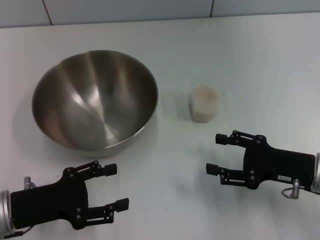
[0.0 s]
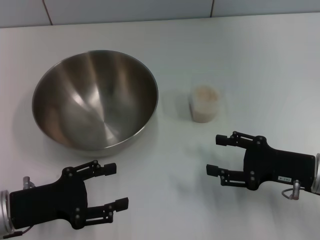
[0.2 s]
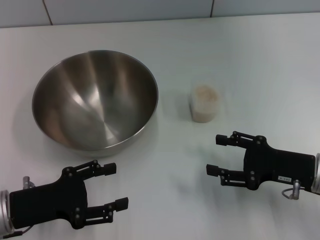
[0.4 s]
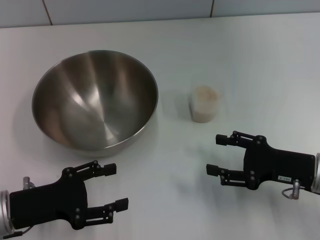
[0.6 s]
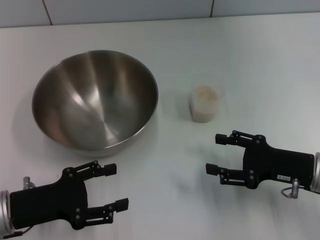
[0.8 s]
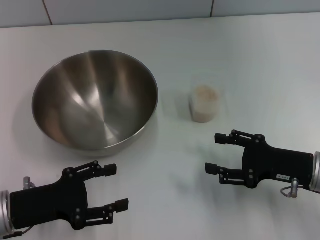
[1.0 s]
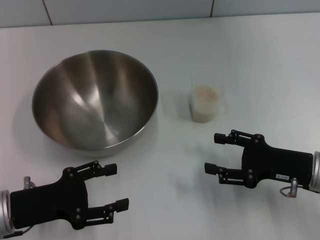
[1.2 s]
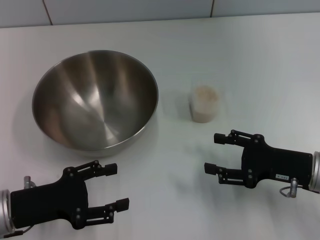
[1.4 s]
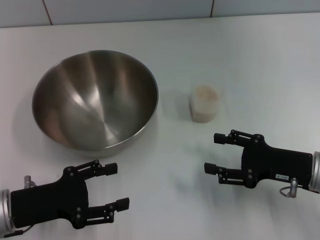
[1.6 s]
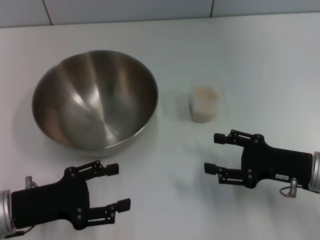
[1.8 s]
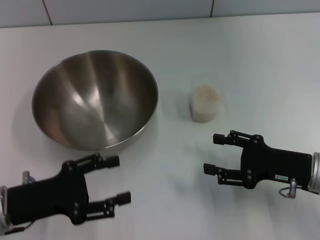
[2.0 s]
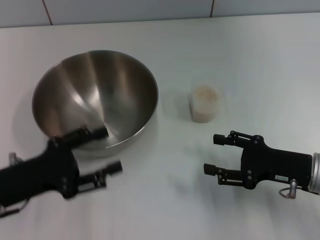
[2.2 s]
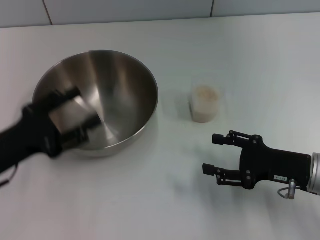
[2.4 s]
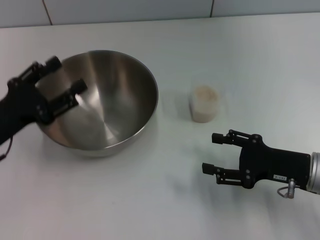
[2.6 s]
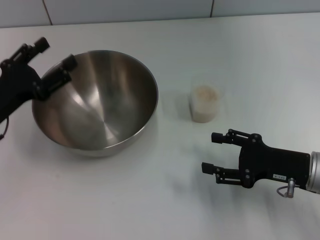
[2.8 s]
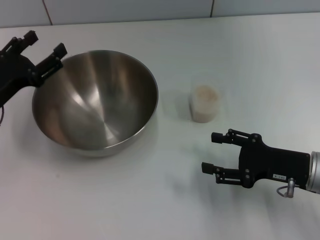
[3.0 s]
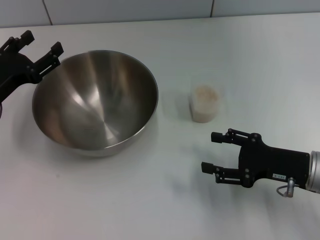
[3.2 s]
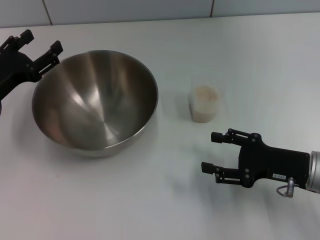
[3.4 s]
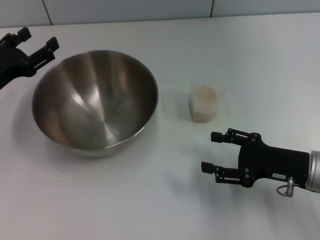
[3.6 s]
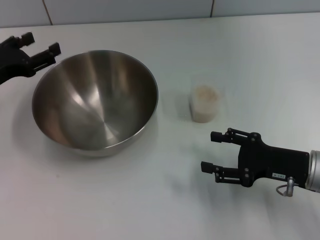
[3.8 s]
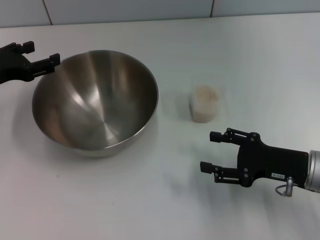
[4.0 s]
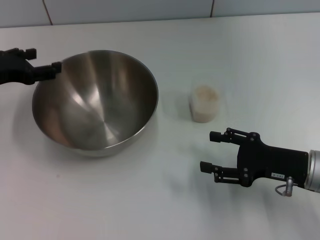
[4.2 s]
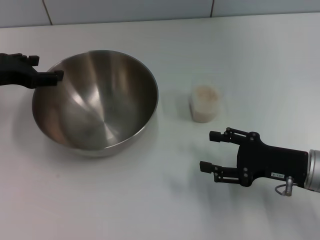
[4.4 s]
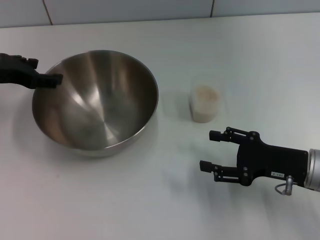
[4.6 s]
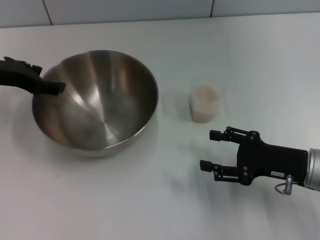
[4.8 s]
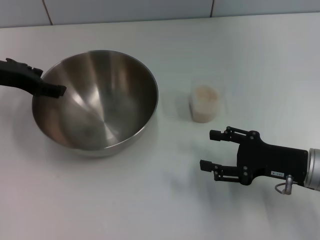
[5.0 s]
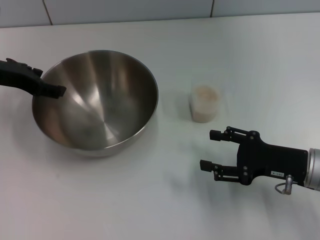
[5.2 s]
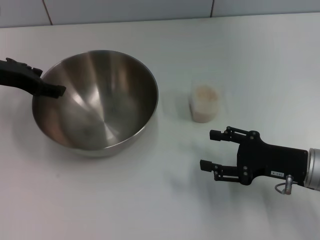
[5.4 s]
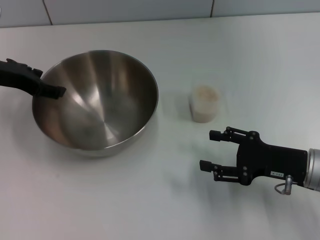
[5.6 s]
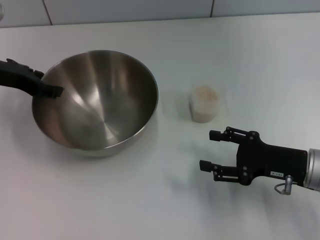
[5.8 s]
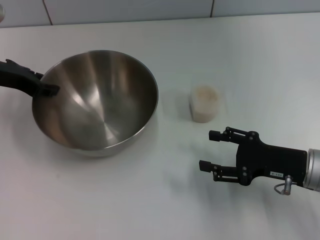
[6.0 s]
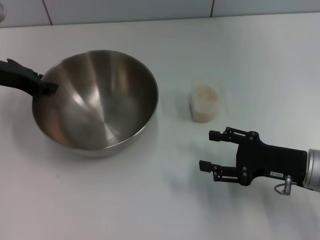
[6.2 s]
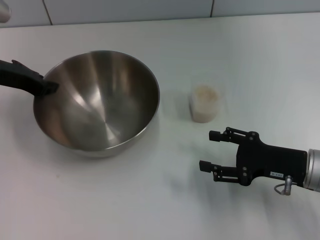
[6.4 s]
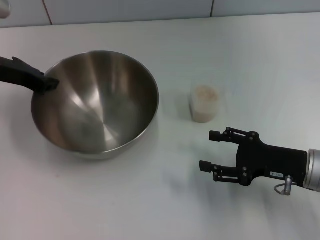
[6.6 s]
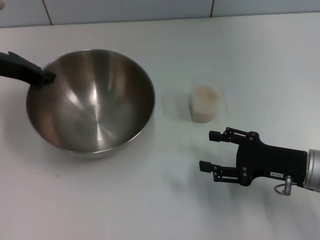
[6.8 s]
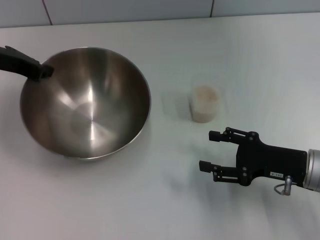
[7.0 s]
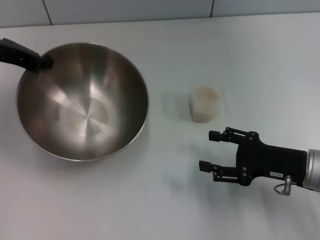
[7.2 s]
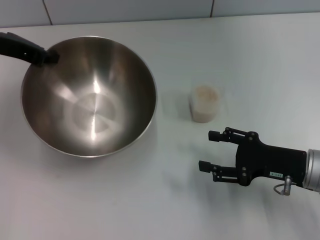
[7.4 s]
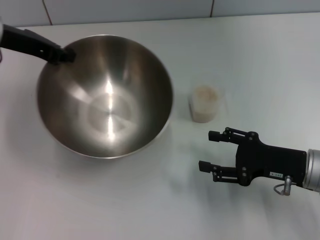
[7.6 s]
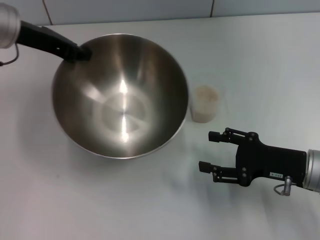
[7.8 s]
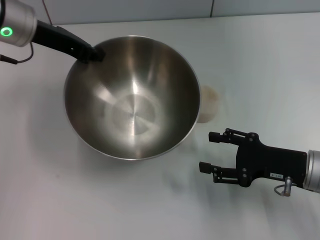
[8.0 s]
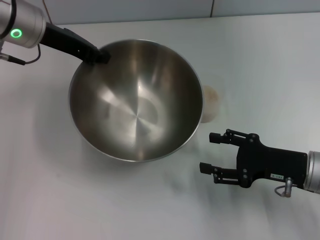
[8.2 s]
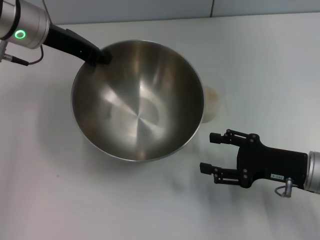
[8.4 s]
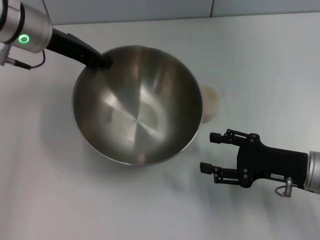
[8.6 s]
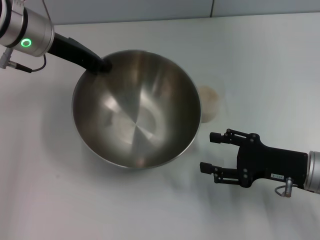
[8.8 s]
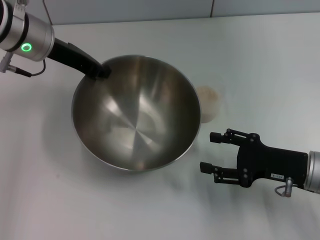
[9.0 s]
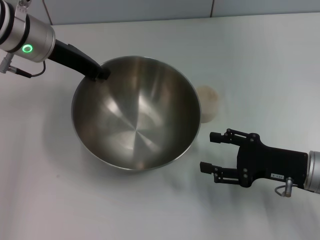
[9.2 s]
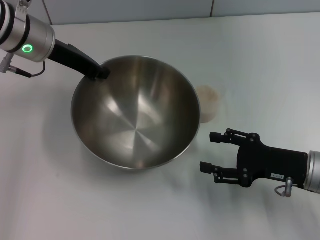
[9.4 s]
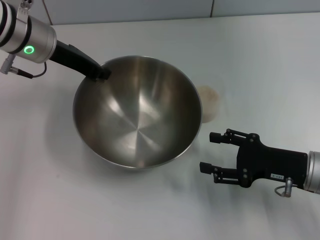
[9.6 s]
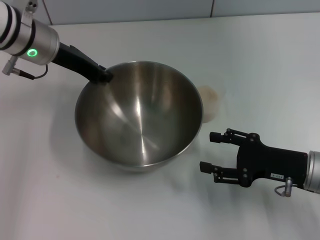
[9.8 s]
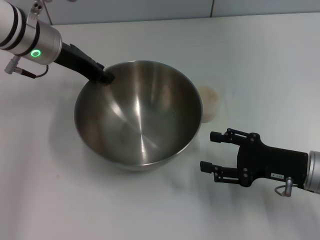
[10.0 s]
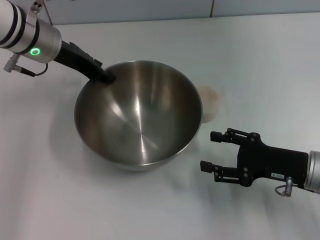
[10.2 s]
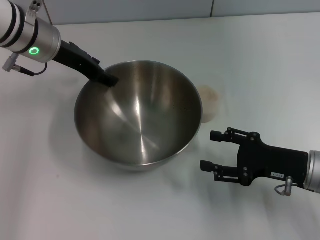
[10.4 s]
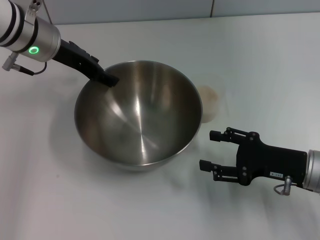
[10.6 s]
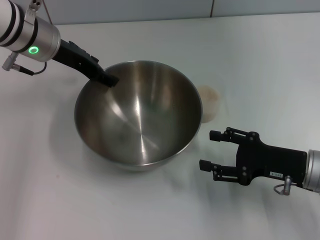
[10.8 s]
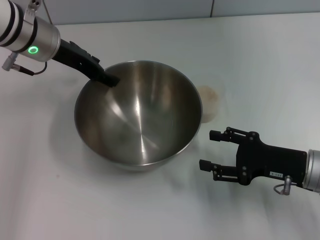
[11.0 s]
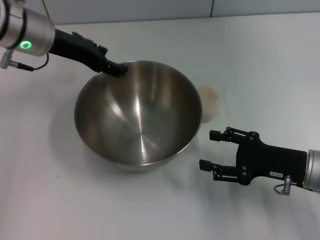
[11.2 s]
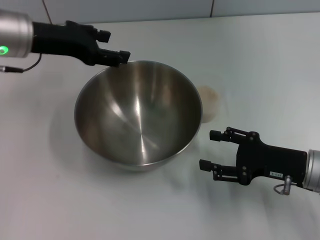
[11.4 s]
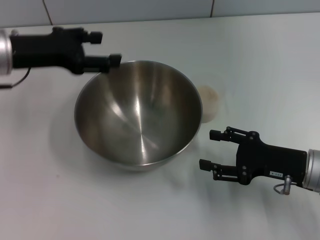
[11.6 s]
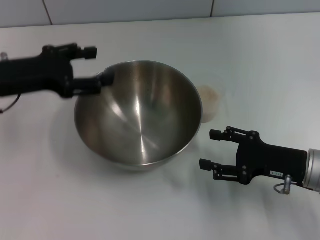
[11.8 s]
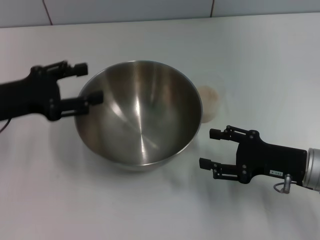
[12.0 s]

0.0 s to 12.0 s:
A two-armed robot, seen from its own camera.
Task of the whole recording: Place the bowl in the middle of the table with one hand and pour the rice from the grain cup into it with the other hand.
Step, 0.0 to 7.2 s: Pick up the bowl with the left gripper.
Step, 7.4 to 11.6 s: Place the bowl in the center of view with the left gripper.
0.0 to 1.6 s: Both grippers stay about where they are.
1.6 to 3.0 s: The left gripper is displaced forward by roughly 10 cm.
3.0 to 4.4 s: The left gripper heads upward and forward, covering roughly 10 cm.
4.4 to 6.0 s: The grippers make only small movements.
6.0 to 7.6 s: The left gripper moves about 5 cm, and closes its fingers.
7.6 to 9.0 s: The left gripper goes about 5 cm to the right.
9.0 to 10.4 s: The left gripper opens.
10.4 to 12.0 s: The left gripper goes roughly 15 cm backward and to the left.

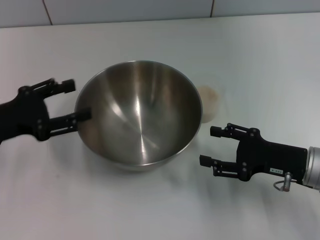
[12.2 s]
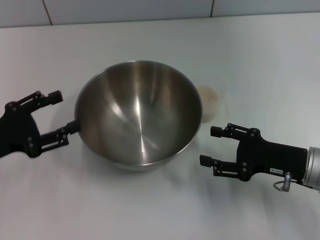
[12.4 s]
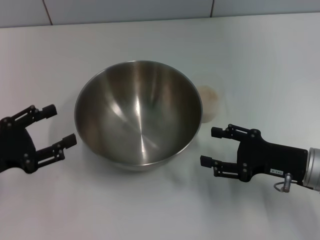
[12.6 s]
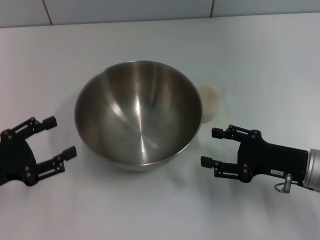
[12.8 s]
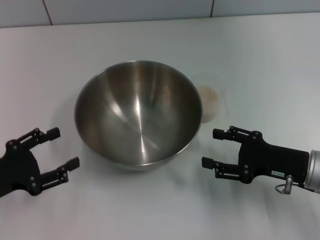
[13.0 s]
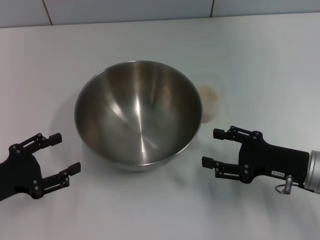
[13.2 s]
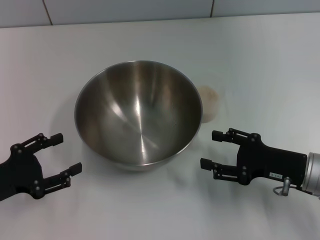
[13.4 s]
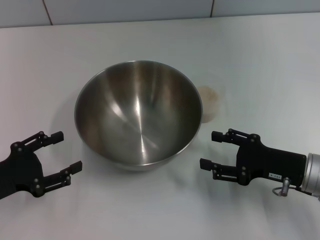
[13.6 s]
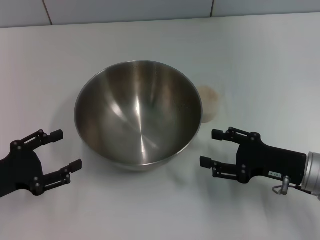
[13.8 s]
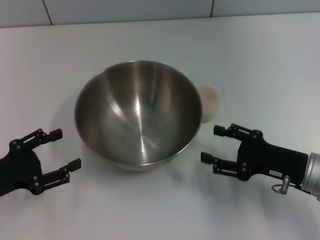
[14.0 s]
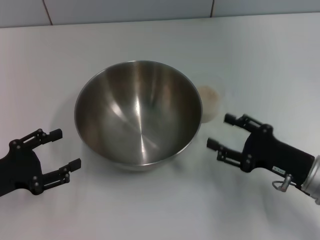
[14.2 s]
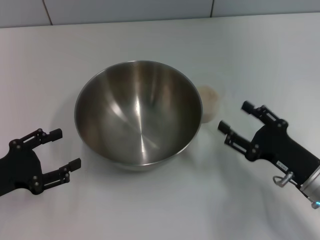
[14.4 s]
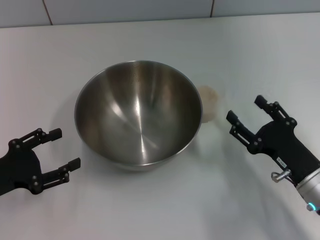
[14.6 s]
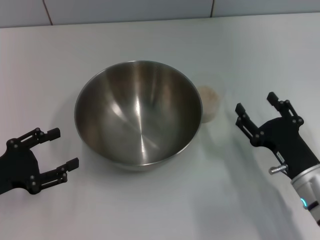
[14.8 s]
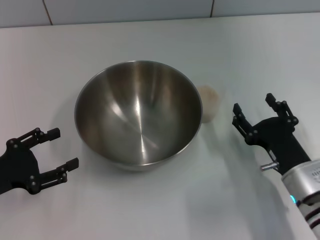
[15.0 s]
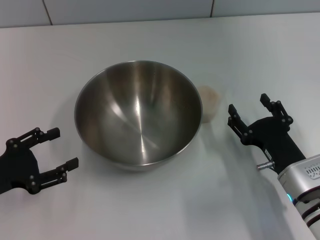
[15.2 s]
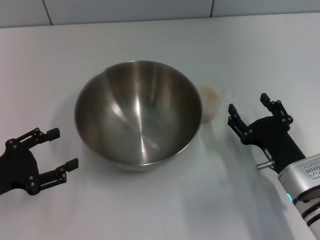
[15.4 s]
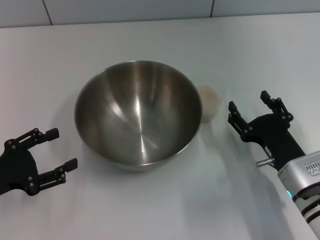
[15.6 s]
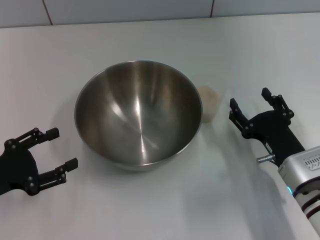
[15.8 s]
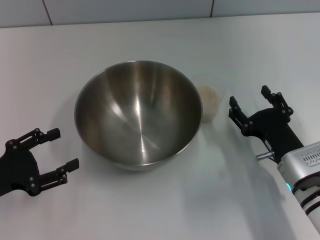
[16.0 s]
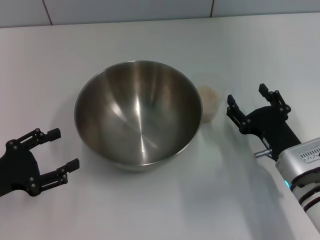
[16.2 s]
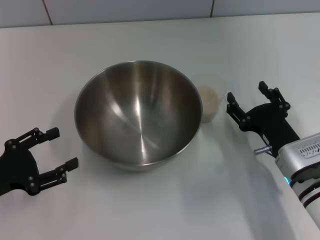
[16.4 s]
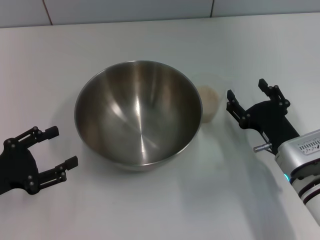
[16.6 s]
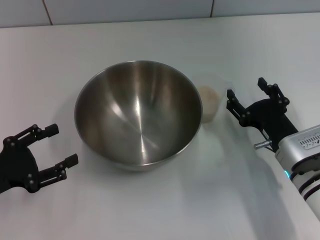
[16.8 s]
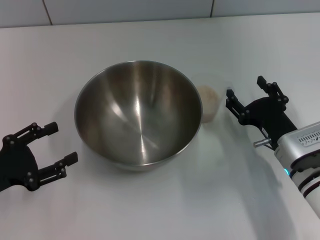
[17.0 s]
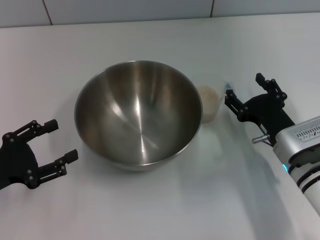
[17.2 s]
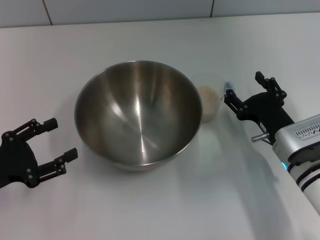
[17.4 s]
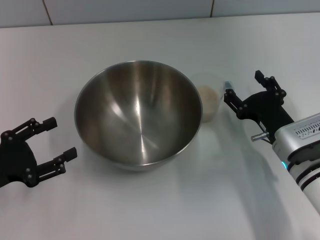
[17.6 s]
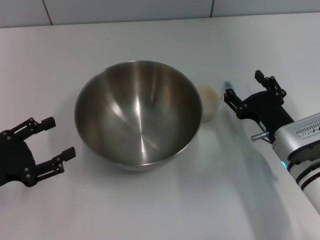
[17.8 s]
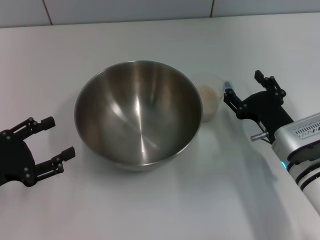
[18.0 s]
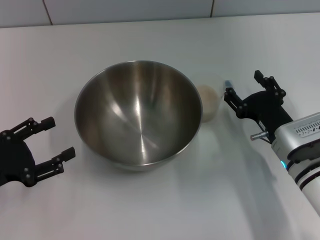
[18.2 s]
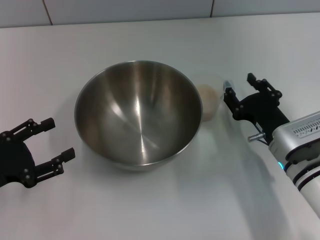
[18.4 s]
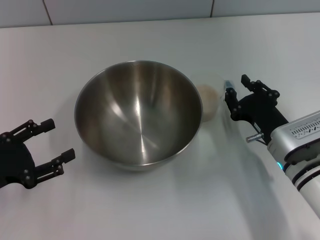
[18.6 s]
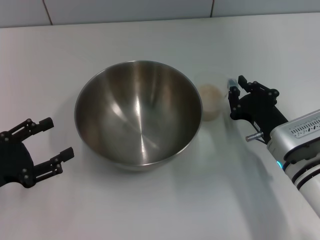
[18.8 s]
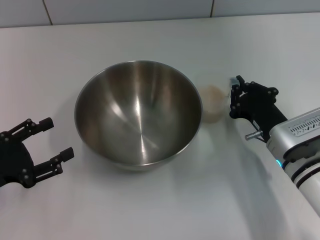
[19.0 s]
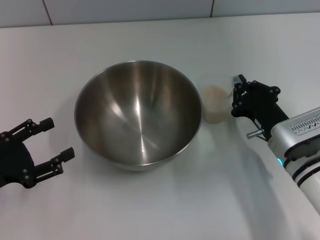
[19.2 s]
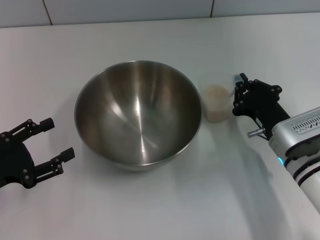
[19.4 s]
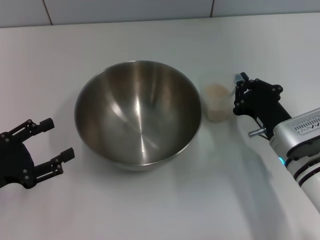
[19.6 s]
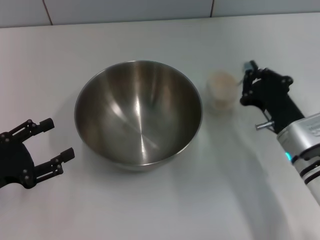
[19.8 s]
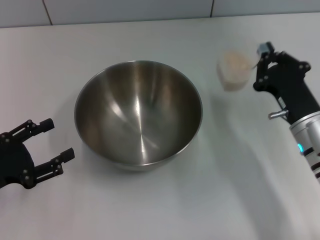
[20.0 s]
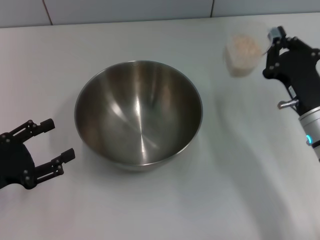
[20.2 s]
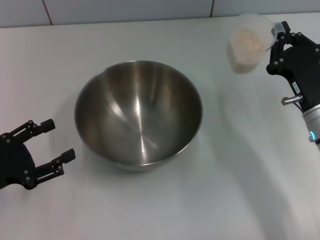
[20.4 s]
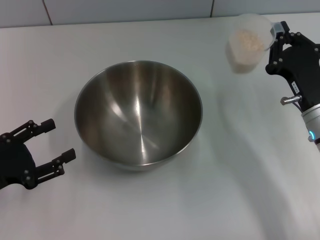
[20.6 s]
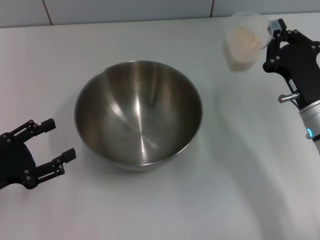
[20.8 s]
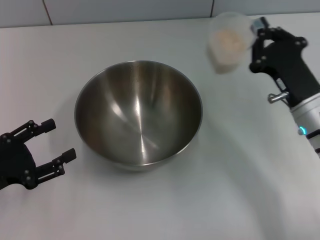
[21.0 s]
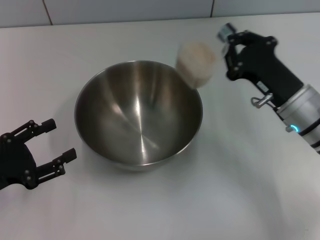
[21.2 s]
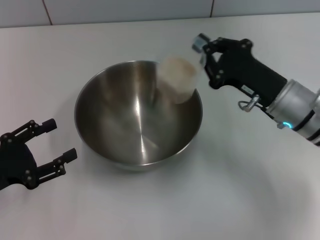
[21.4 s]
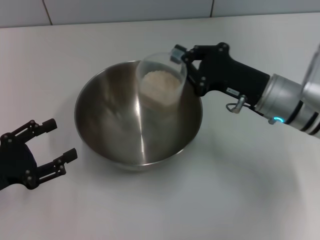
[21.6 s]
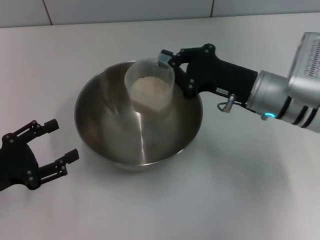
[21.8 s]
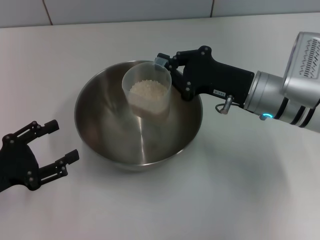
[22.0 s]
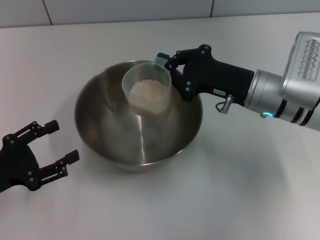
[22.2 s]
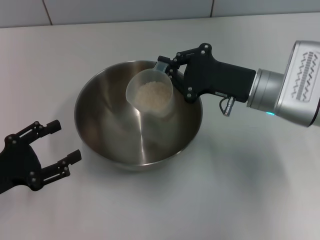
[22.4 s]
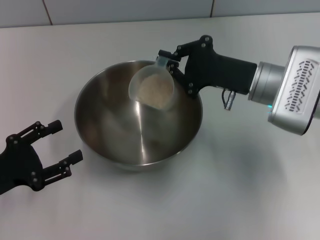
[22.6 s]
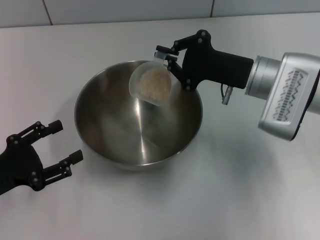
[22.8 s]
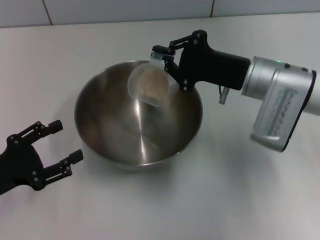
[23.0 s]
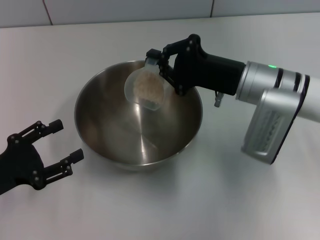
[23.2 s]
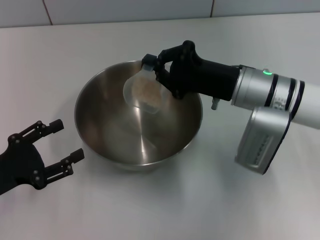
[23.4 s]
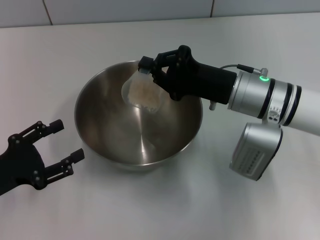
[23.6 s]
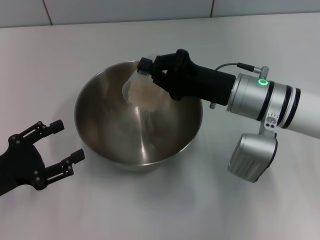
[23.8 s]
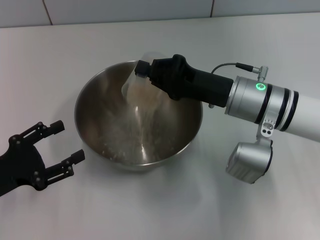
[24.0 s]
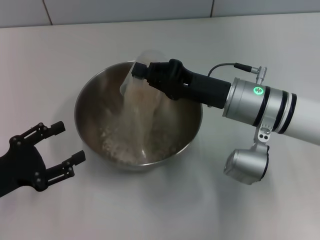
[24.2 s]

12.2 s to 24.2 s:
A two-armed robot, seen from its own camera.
Task of the whole recording: Place the bowl in the middle of the table with one hand and pour the rice from the grain cup into it with the other hand.
Step, 12.2 to 20.4 s: Pick up the cup with rice in it with the right gripper.
12.2 to 13.8 s: The left gripper moves backward and downward, some 10 cm.
13.8 to 15.2 s: The right gripper moves to the left, approximately 5 cm.
15.2 to 18.2 s: The grippers stay close to where they were, moving slightly.
18.2 to 19.8 s: The right gripper closes its fingers.
19.8 to 21.2 s: The right gripper shifts by roughly 5 cm.
21.2 to 22.6 s: The right gripper changes place by approximately 5 cm.
